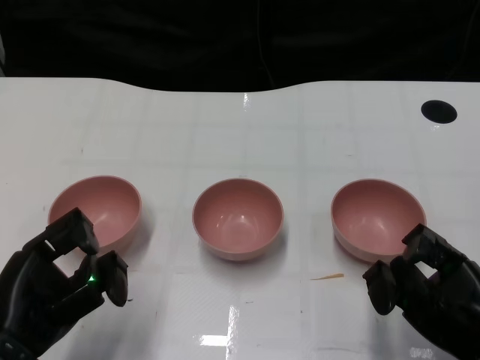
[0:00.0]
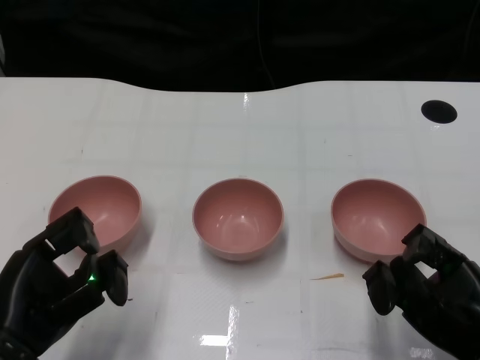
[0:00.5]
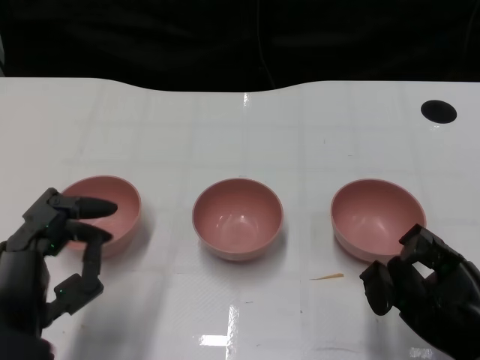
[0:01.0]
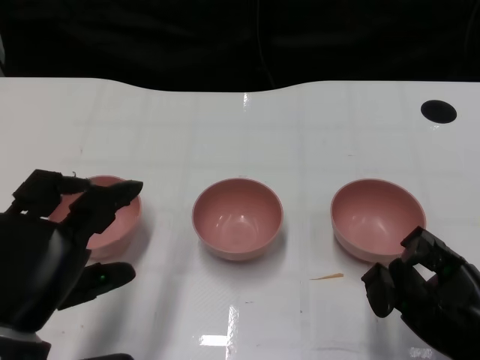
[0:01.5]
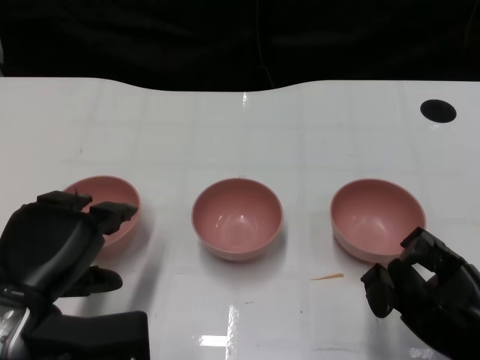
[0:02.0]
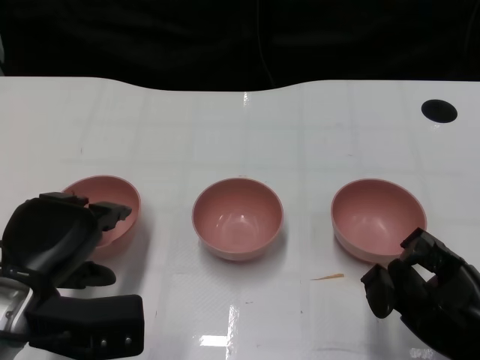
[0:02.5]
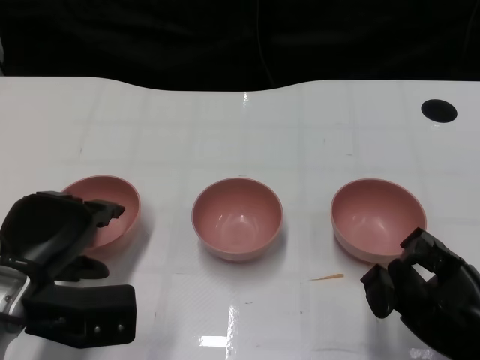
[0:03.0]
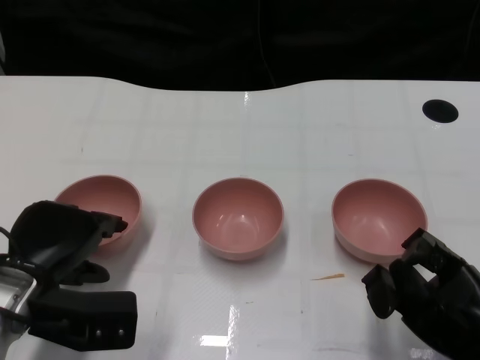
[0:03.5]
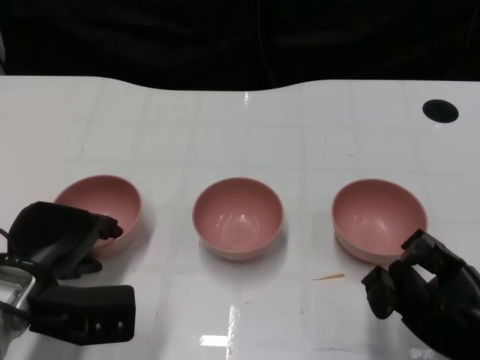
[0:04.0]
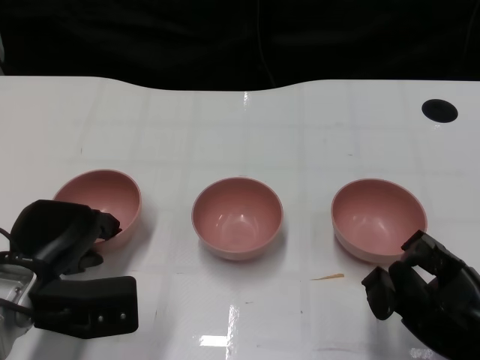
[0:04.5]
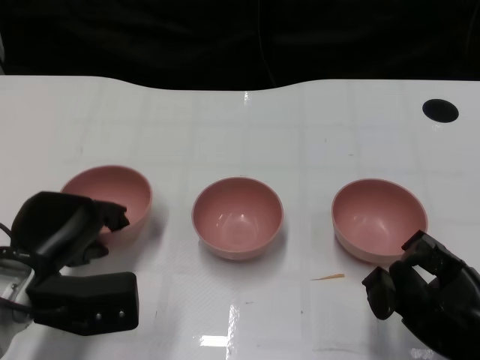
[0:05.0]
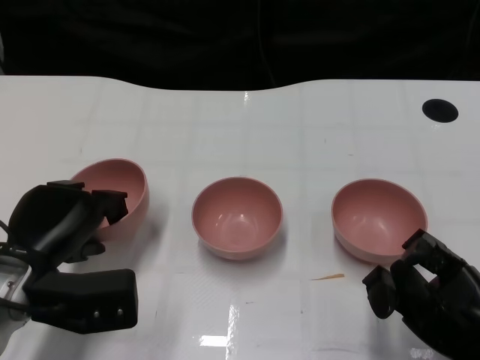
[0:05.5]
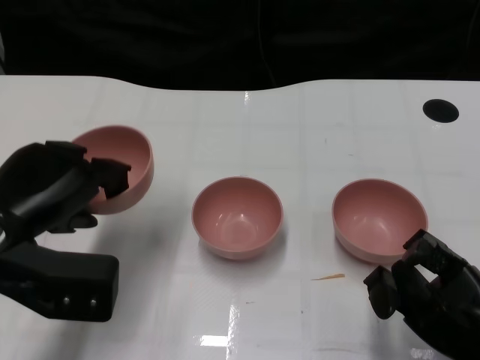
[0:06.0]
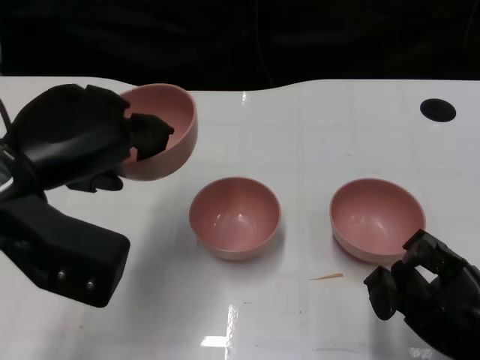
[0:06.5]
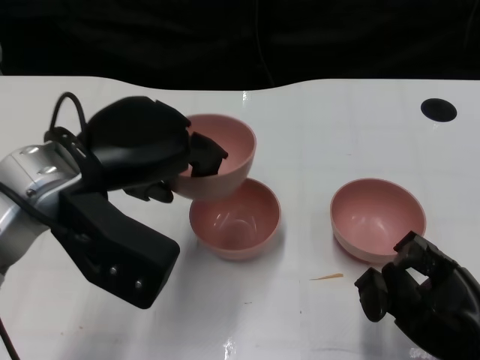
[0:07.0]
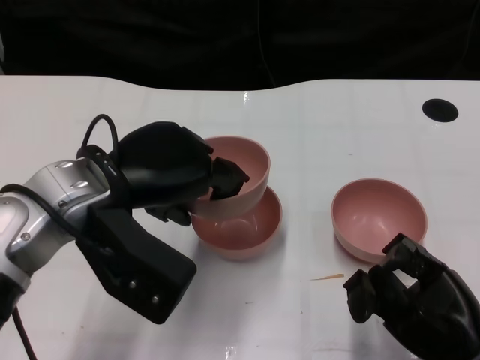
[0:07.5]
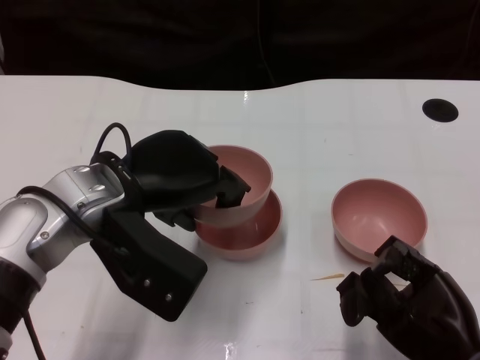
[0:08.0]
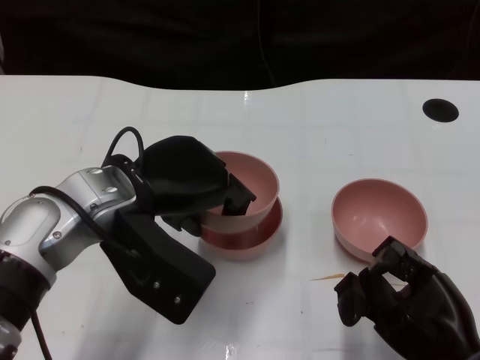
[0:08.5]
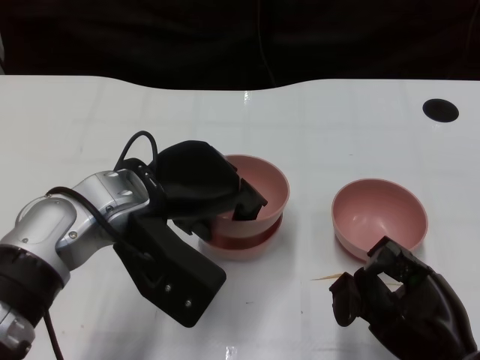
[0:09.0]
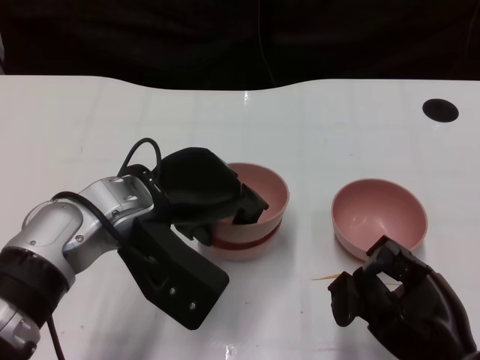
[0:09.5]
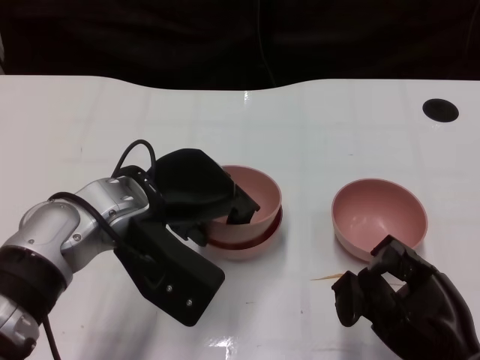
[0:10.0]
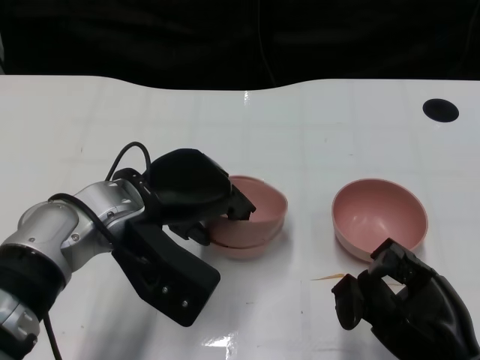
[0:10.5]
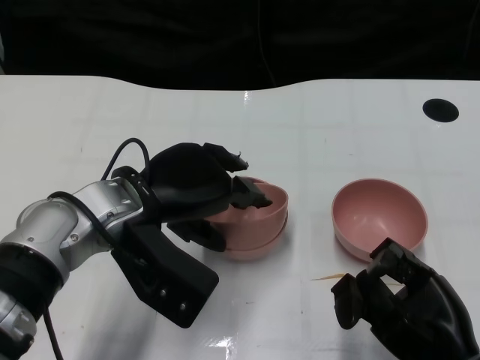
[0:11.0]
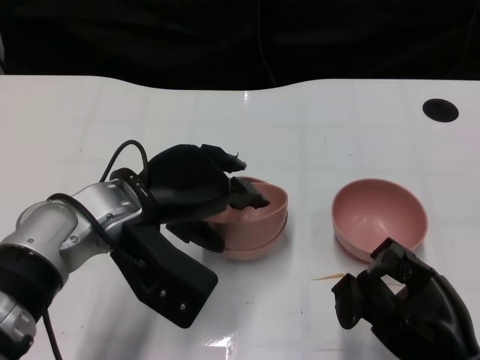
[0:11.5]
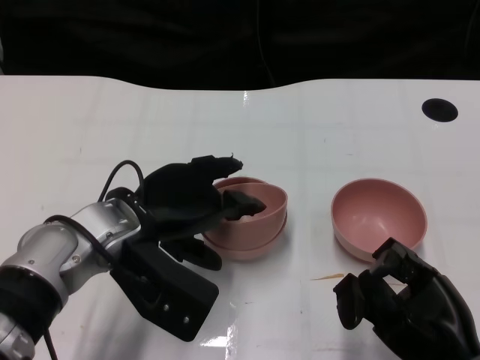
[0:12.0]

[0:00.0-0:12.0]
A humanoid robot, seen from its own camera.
Task of the whole recording: Pick up the bowl on one side of the table and place it on top of the middle bowl, then pick up the bowl on the other side of the table and place it on top of the middle bowls.
Step, 0:01.0 to 0:05.0: Grasp the bowl on the left with the left gripper.
0:02.0 to 0:04.0: The left hand goes some 5 cm forward.
0:04.0 to 0:06.0: The left hand goes about 10 cm upward.
0:06.0 to 0:08.0: The left hand goes roughly 10 cm to the right.
0:08.0 to 0:12.0: The hands make only small movements.

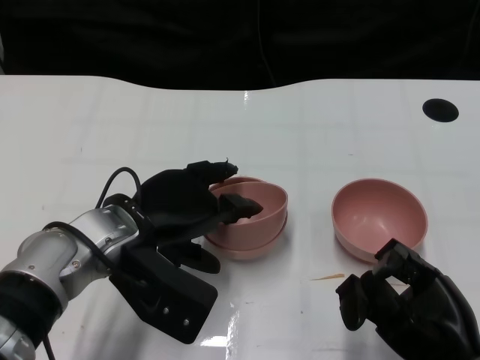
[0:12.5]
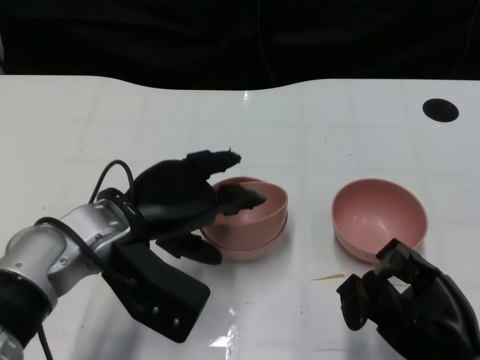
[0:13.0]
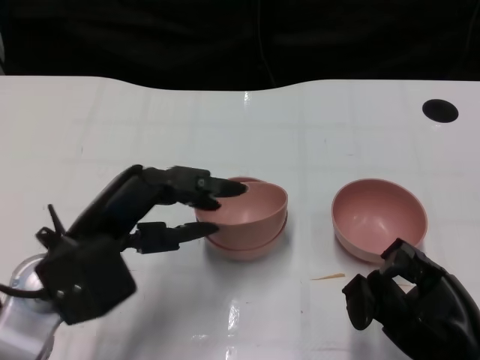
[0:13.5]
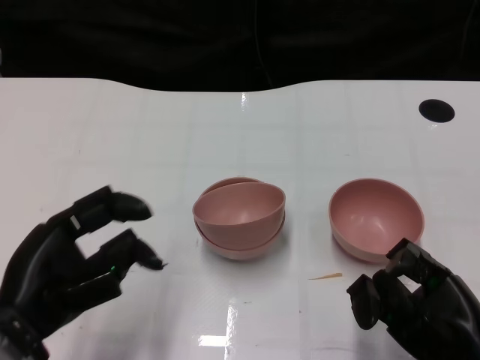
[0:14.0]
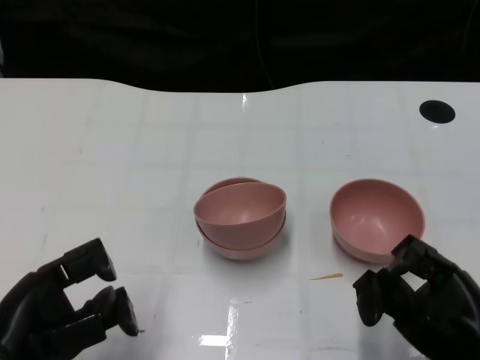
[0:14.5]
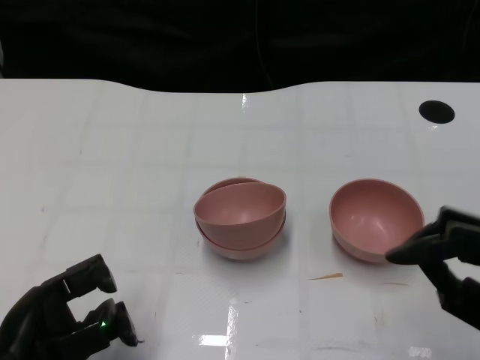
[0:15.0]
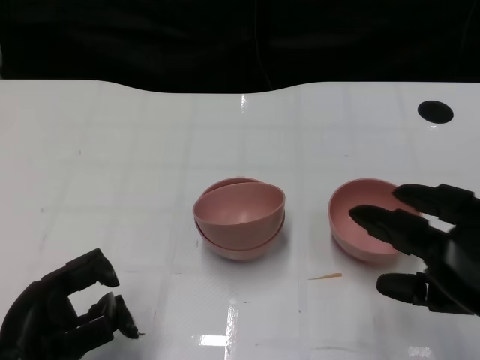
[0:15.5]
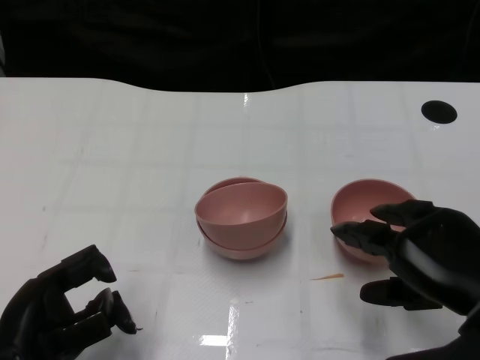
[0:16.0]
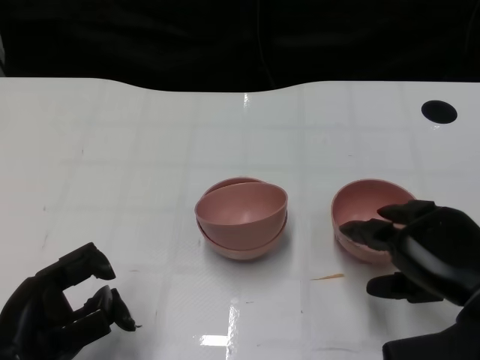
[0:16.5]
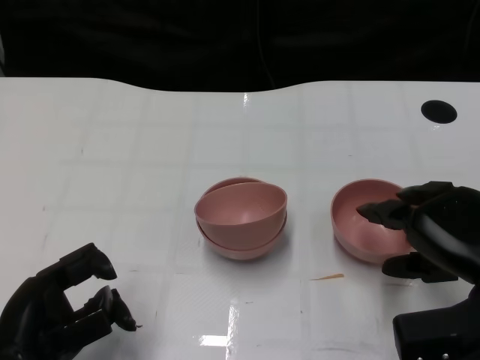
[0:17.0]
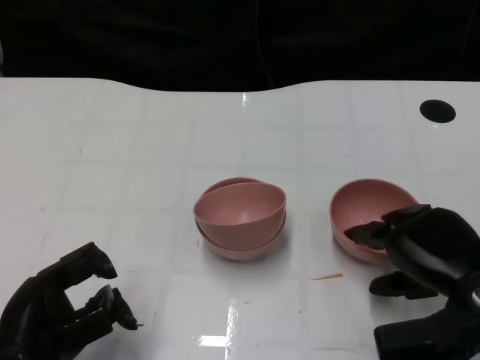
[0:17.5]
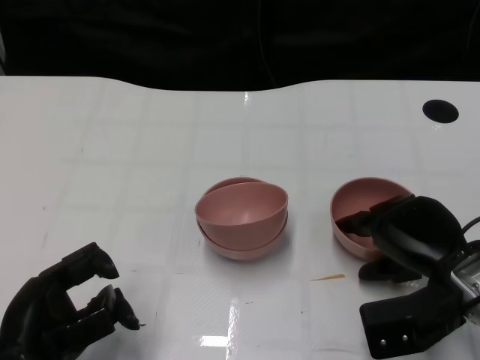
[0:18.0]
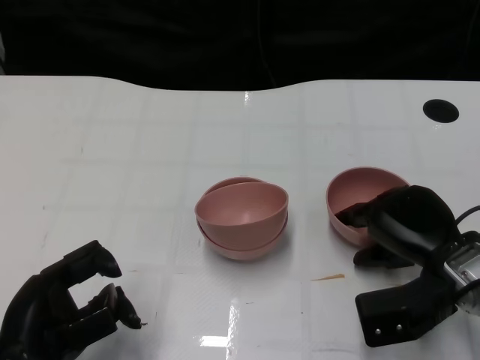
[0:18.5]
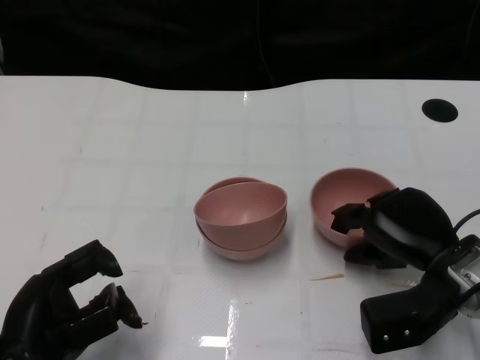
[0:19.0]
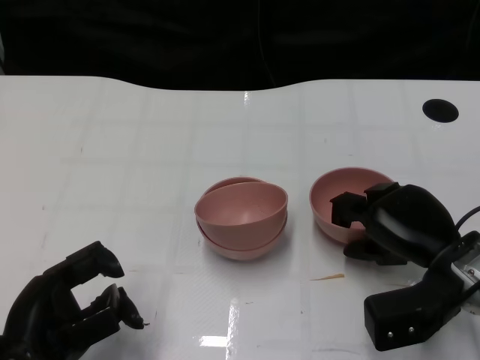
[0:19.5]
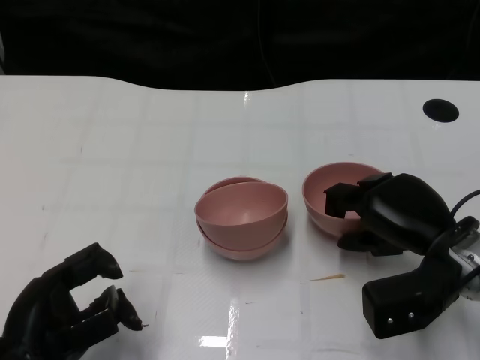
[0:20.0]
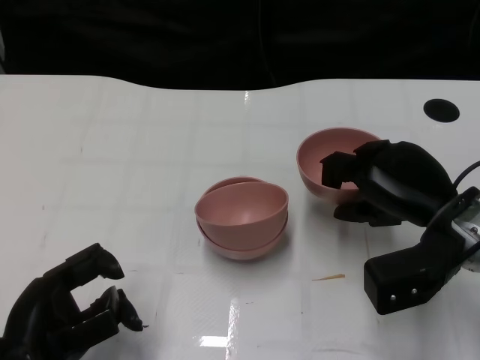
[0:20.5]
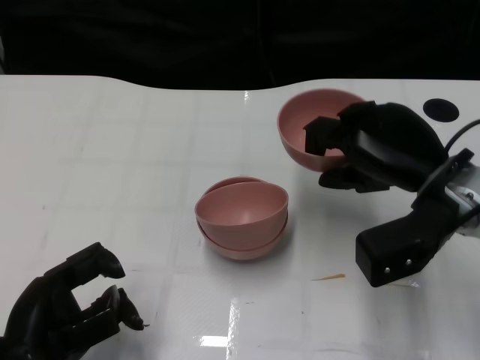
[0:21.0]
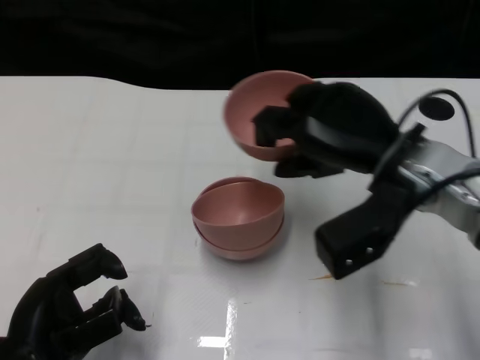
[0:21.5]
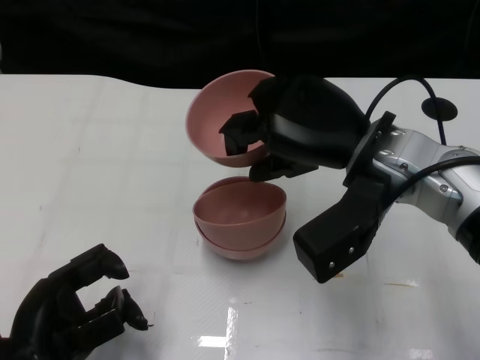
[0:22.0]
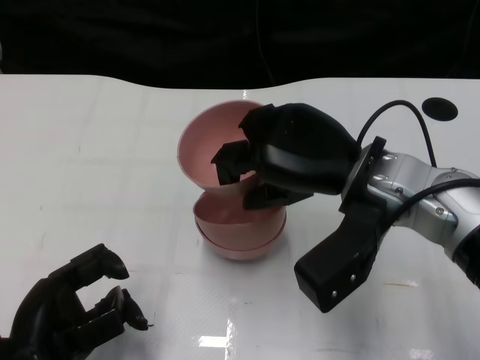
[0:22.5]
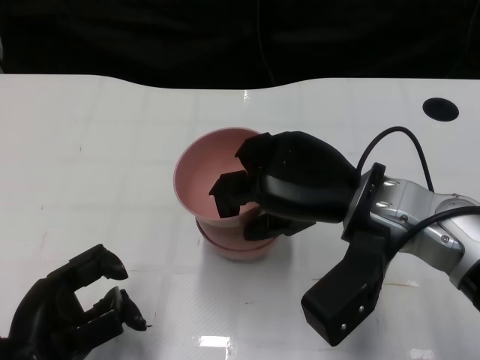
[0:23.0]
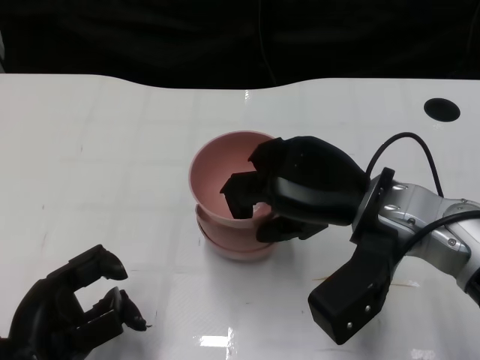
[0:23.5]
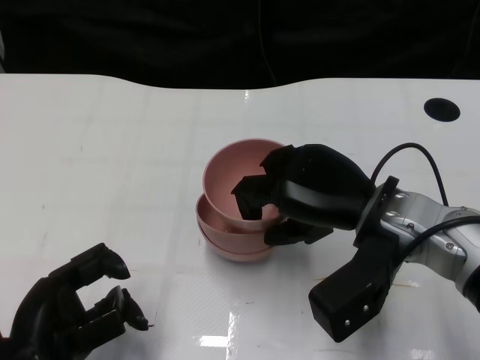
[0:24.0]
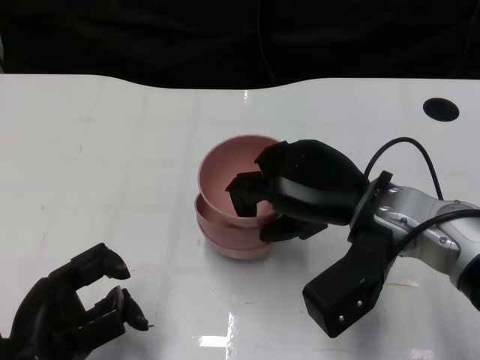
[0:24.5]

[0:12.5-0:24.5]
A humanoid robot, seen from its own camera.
Task of the whole recording: Pick up the bowl on one side of the table and place it on top of the middle bowl, then pick up the bowl on the other side of the table and place it on top of the middle bowls.
Step, 0:13.5 to 0:20.0: Grasp the bowl on the right with the right gripper.
0:12.5 to 0:14.5: The left hand travels backward and to the left by some 15 cm.
0:14.5 to 0:16.5: The right hand ends up about 5 cm from where it was.
0:16.5 to 0:18.5: The right hand is displaced forward by approximately 5 cm.
0:18.5 to 0:20.5: The hands move only a little.
0:20.5 to 0:22.5: The right hand is displaced to the left and upward by some 10 cm.
0:22.5 to 0:24.5: There are only small adjustments of the hands.

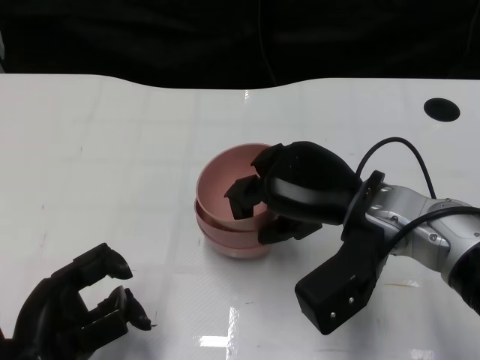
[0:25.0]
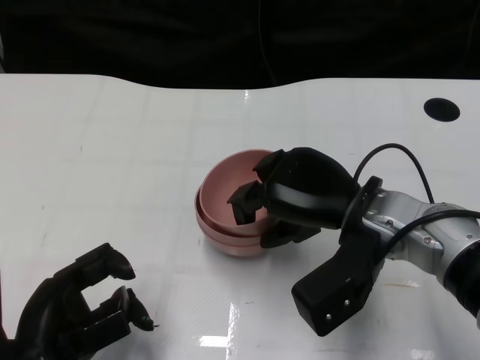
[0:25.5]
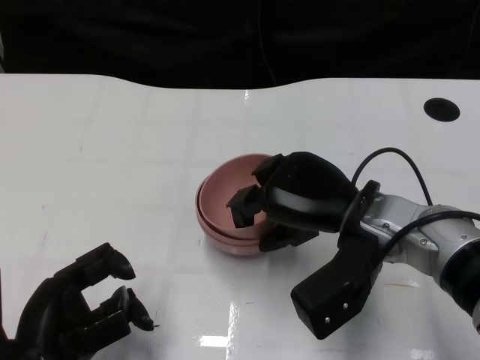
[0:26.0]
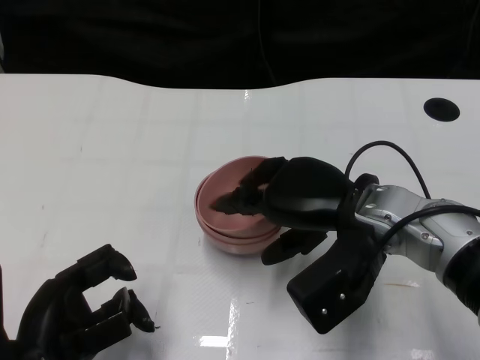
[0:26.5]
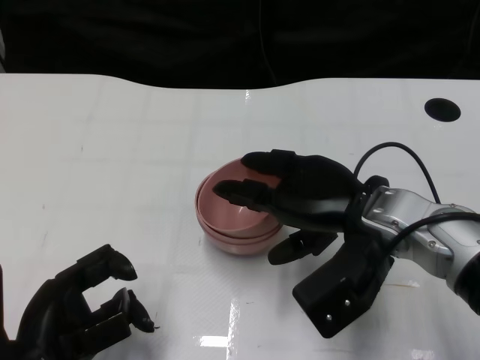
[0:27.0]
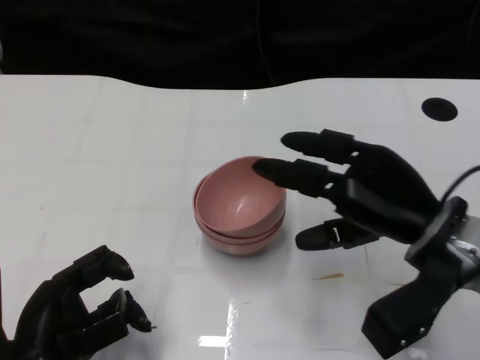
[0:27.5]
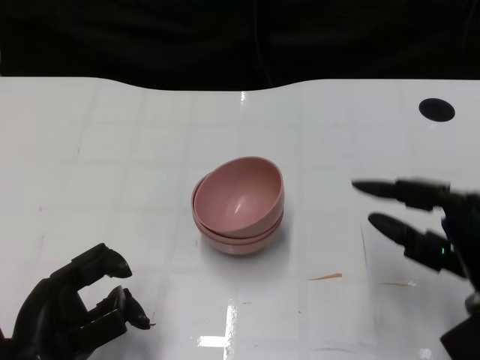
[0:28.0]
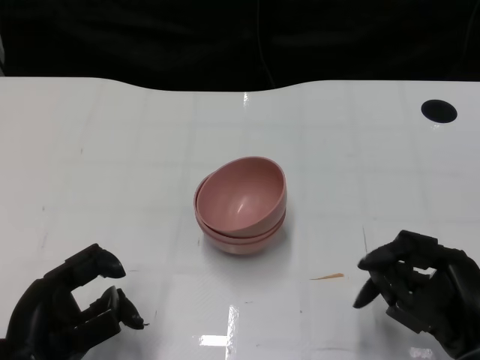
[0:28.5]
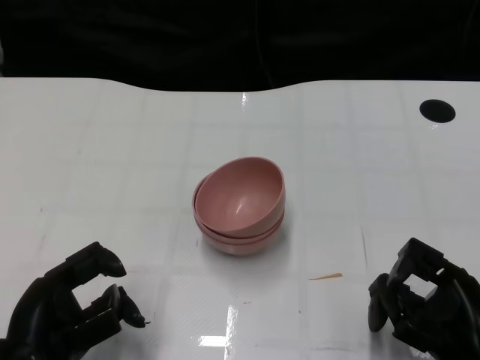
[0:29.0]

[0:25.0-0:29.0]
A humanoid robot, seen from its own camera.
Task of the whole recording: Pick up the bowl on one side of the table and place it on top of the middle bowl, then pick up the bowl on the other side of the table and place it on top of the middle bowls.
Step, 0:25.0 to 0:27.0: Place the bowl on the right onto the bowl in the middle with right gripper.
0:25.0 to 0:27.0: The hands make only small movements.
0:27.0 to 0:29.0: The right hand heads backward, to the right and downward, covering approximately 20 cm.
